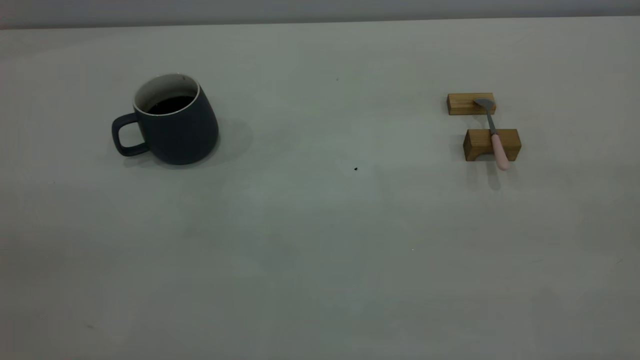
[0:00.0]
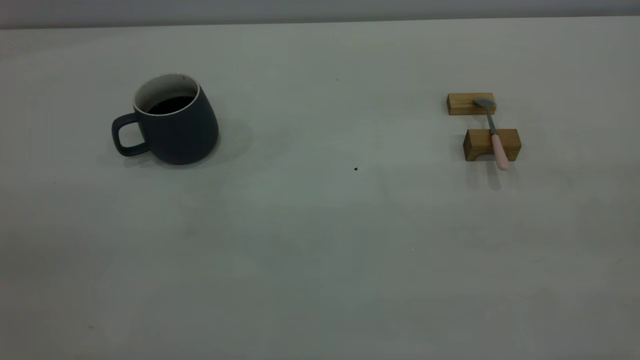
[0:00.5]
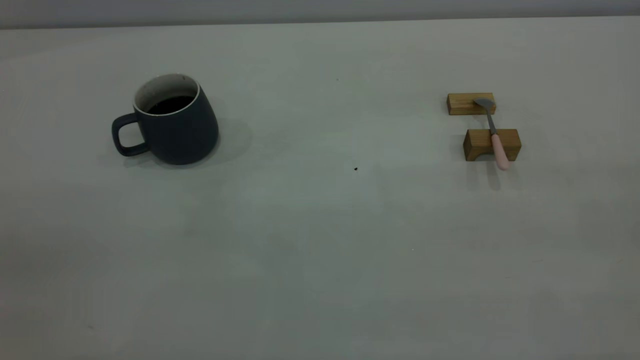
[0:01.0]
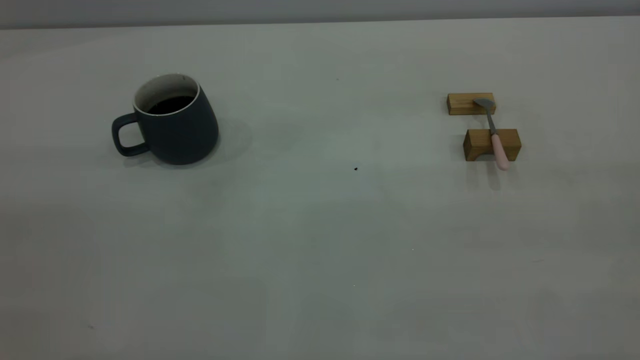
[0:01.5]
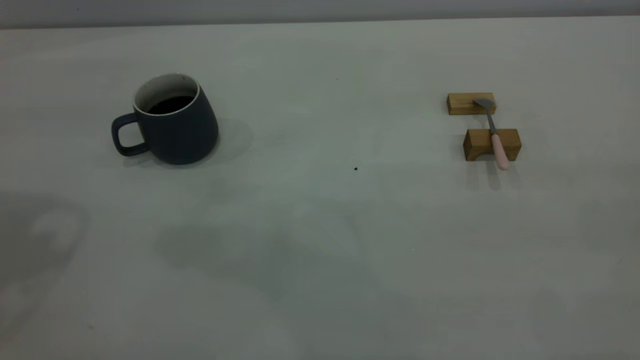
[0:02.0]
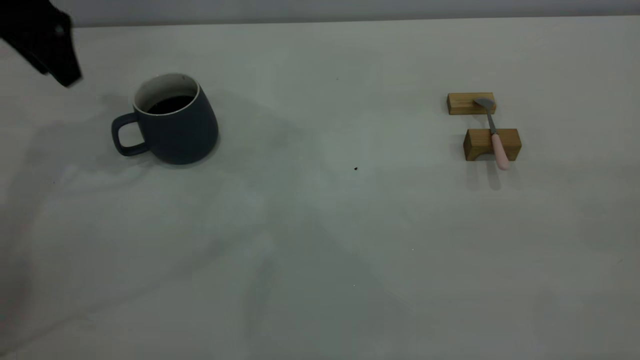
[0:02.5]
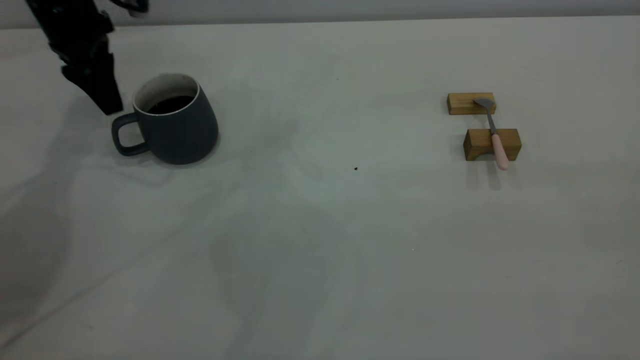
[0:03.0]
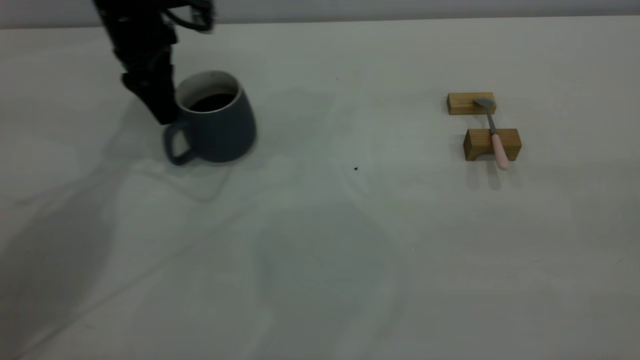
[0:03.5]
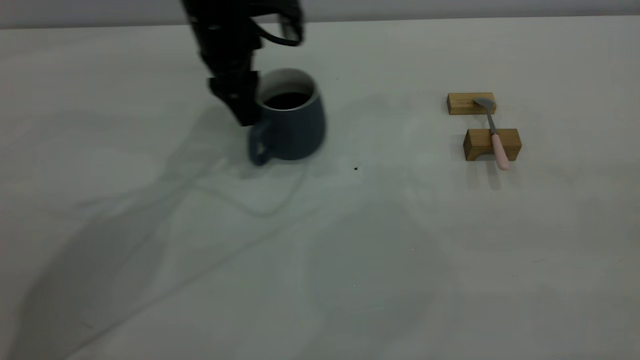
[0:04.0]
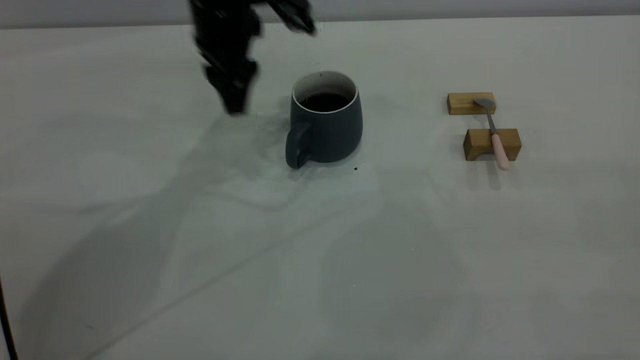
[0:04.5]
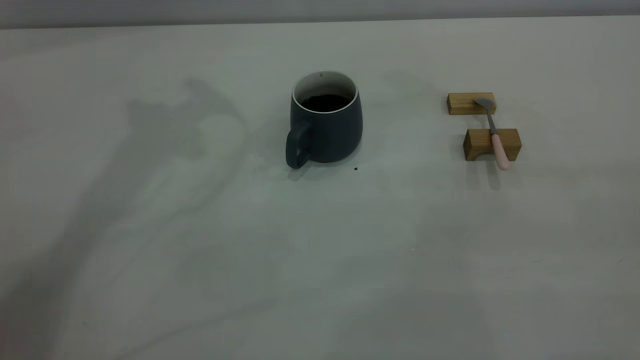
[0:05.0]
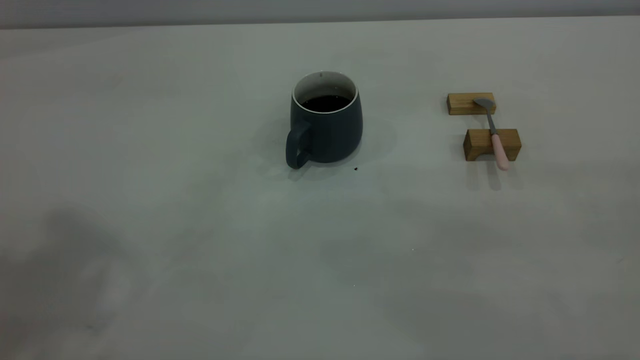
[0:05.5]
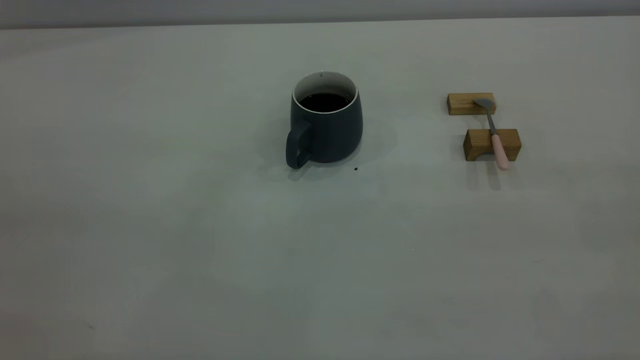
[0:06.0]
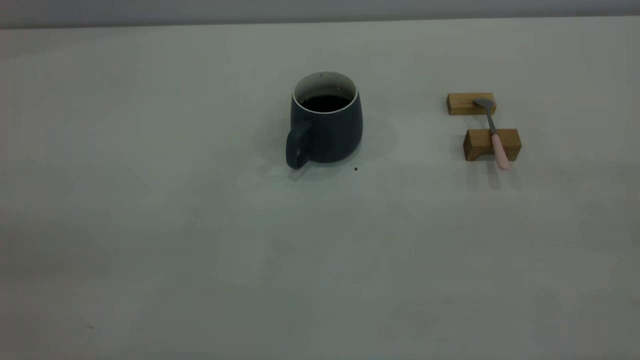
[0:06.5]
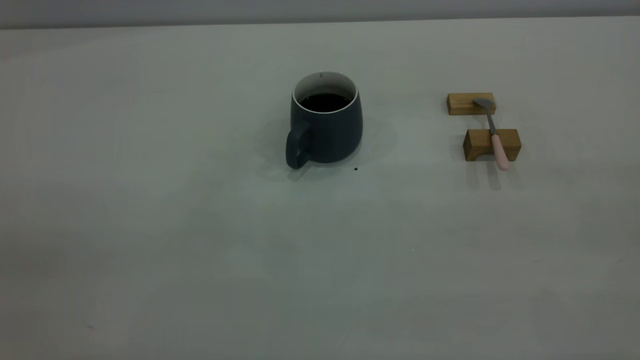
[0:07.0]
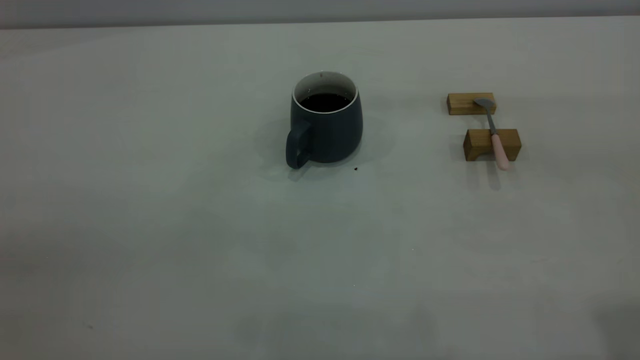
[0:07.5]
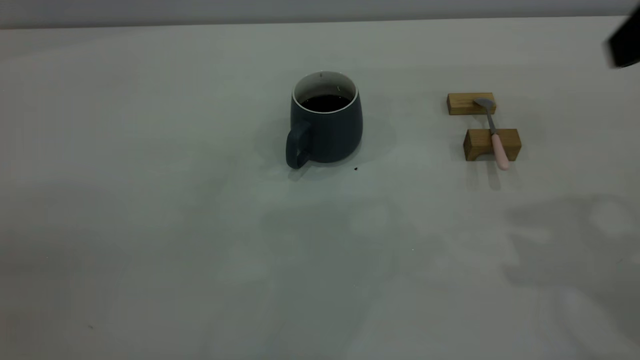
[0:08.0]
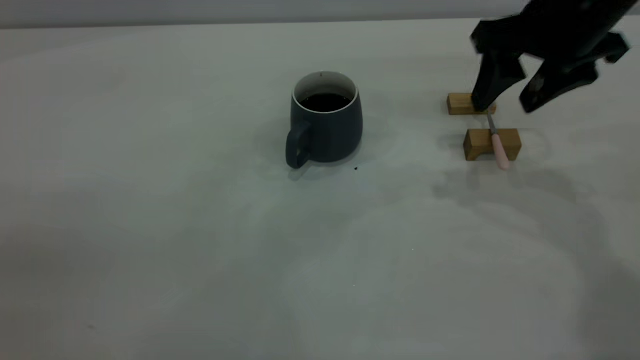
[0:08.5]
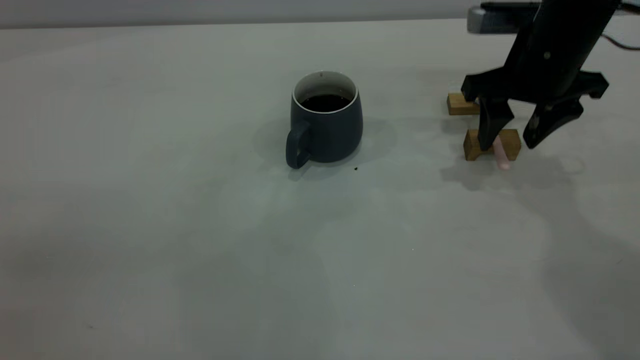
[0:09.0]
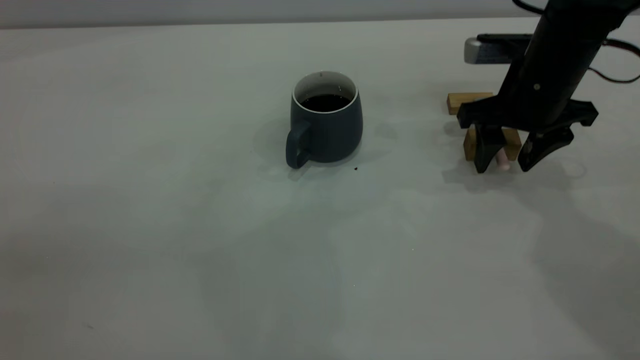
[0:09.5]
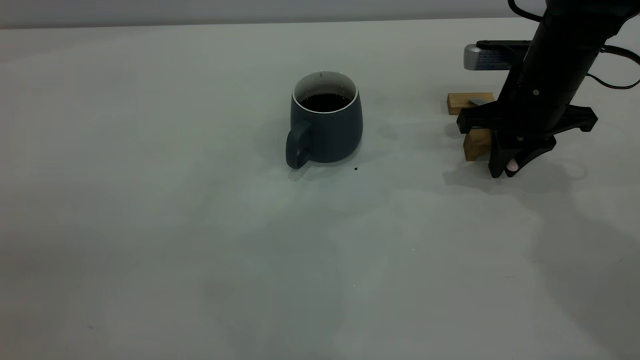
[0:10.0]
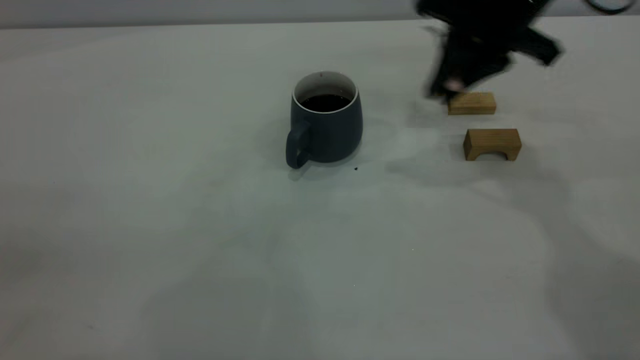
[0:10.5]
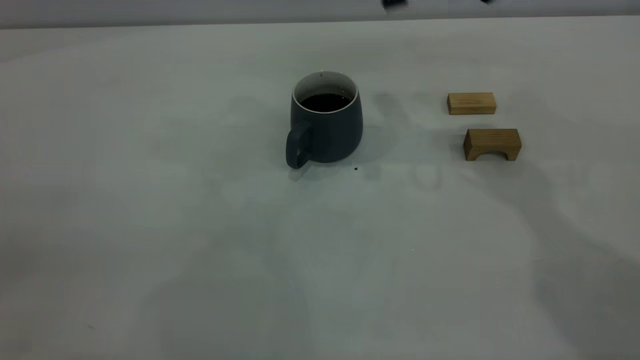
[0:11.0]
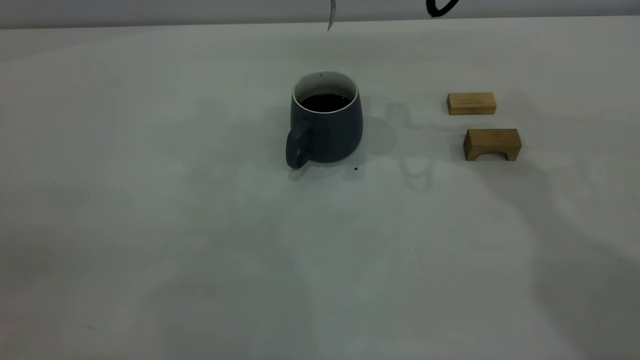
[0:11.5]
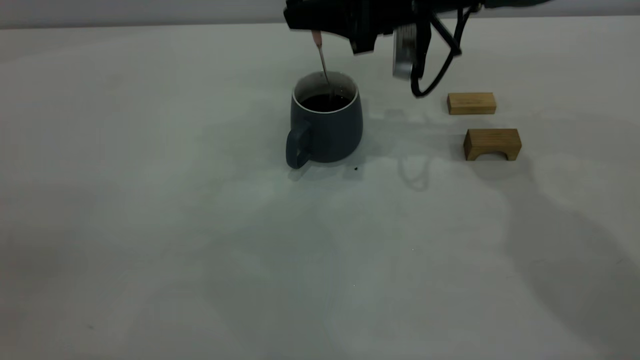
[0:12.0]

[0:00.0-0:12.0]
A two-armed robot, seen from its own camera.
Step, 0:02.5 to 0:04.0: Move the cup in the center of the table with left gripper.
Step, 0:04.5 to 0:10.0: Grasp the spoon with right gripper.
0:02.0 to 0:04.0: The left gripper goes roughly 35 cm to the right, downward and forward.
0:04.0 to 0:06.0: The left gripper is displaced backward, upward and to the left by roughly 50 cm.
0:06.0 to 0:08.0: The right gripper is displaced forward by roughly 25 cm.
0:08.0 to 0:10.0: The right gripper is displaced downward and forward by about 25 cm, and closes its fingers.
0:10.0 to 0:12.0: The right gripper travels to the left and forward by roughly 10 cm, and travels upward and back again, about 15 cm each way.

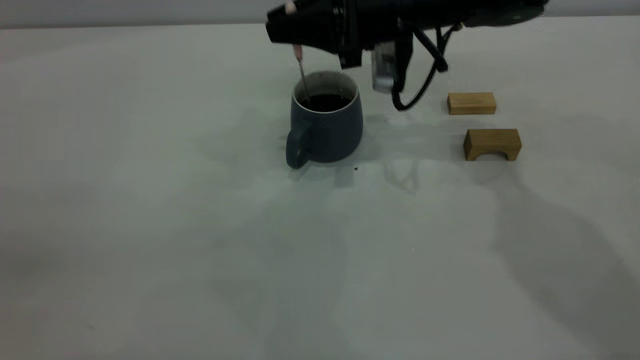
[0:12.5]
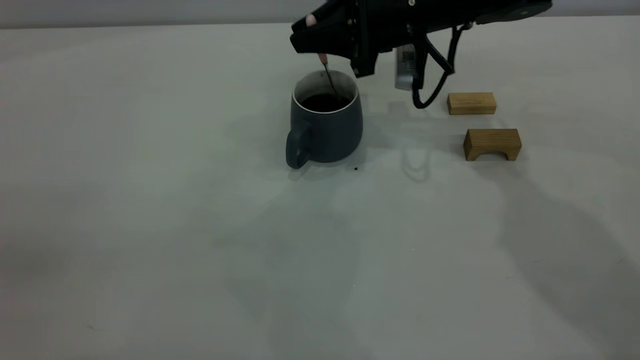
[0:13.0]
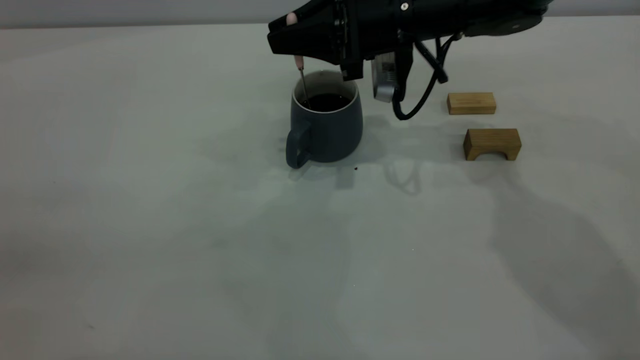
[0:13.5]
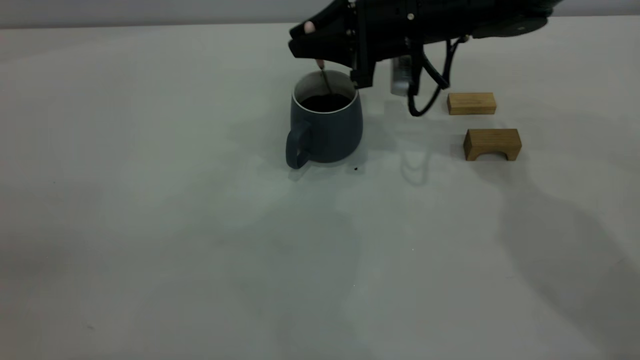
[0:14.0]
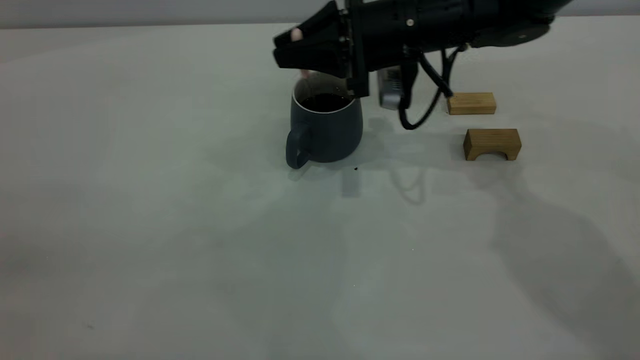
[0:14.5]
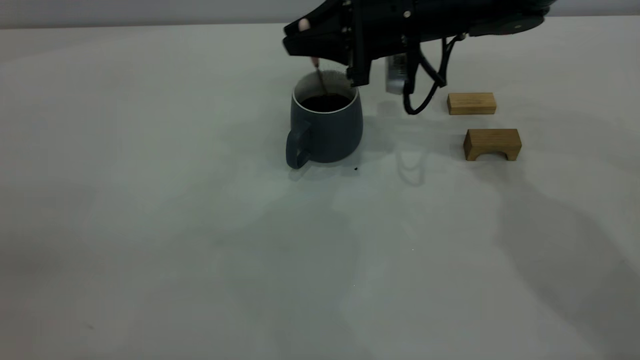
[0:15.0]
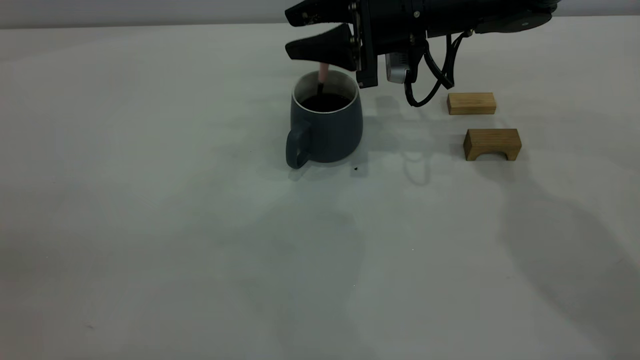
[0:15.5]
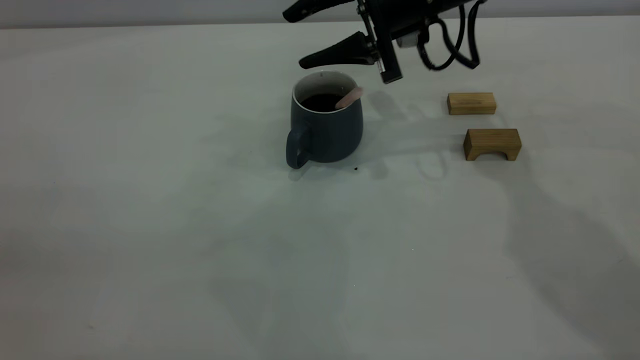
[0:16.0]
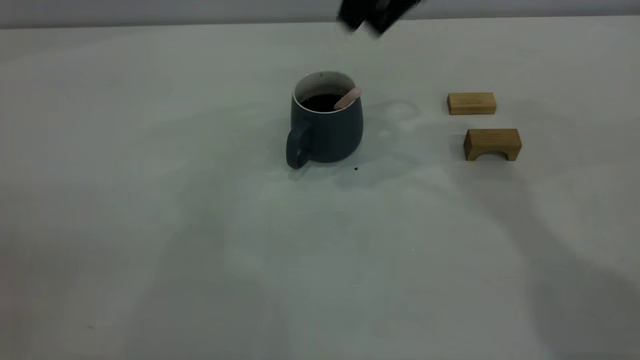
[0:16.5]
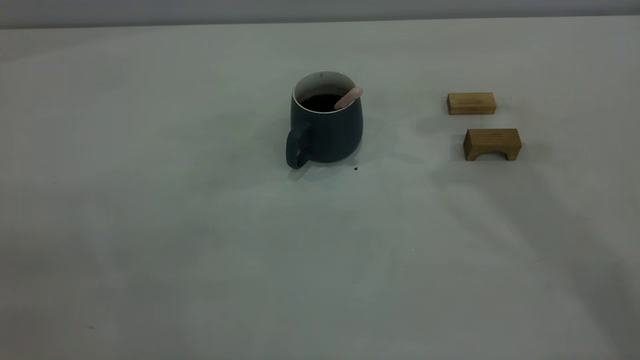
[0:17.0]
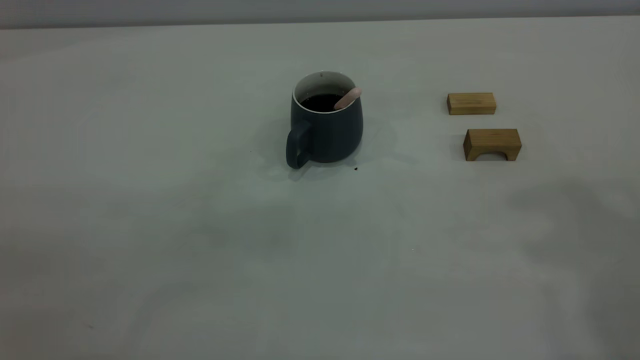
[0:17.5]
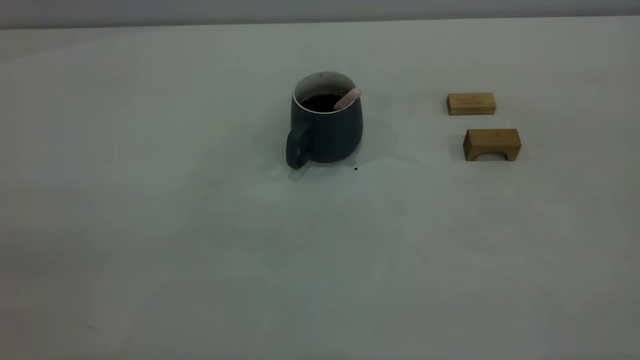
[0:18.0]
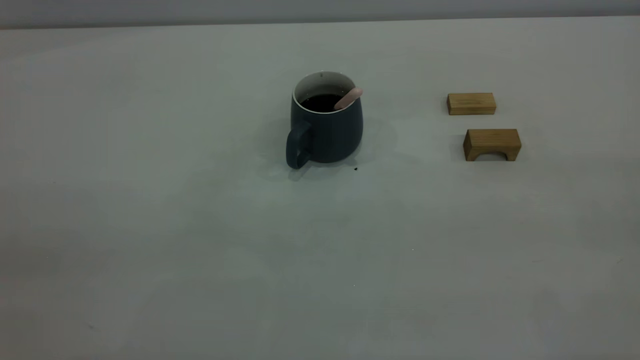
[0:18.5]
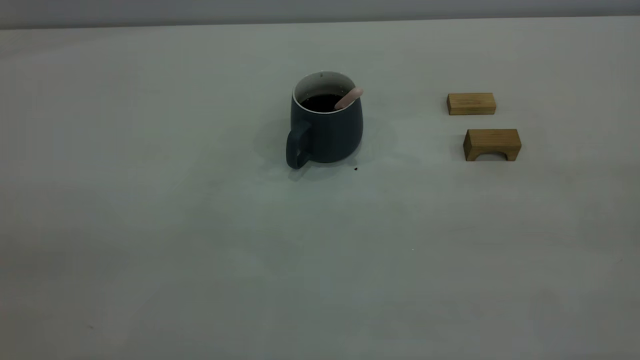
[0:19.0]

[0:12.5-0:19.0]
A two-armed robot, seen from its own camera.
Step, 0:12.5 to 0:15.5: Stir the coffee with right gripper.
0:12.5 to 0:14.5: The grippers make only small movements.
0:14.5 to 0:17.0: The right gripper is displaced upward and to the right by about 30 cm, and opens, then closes again.
